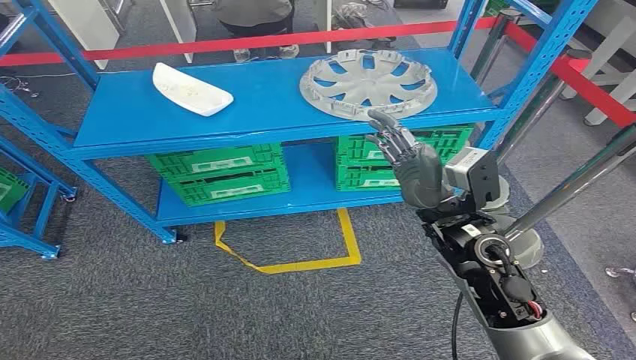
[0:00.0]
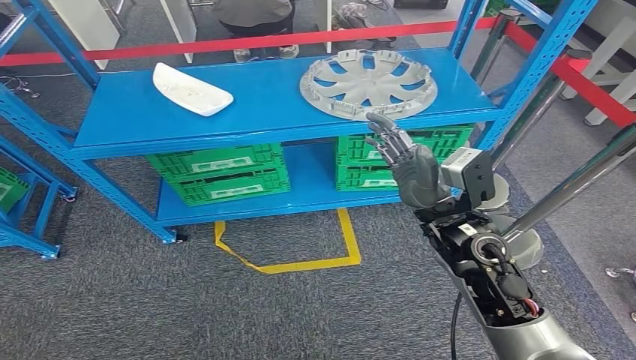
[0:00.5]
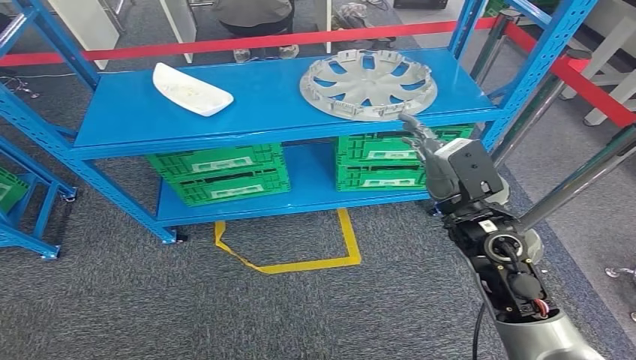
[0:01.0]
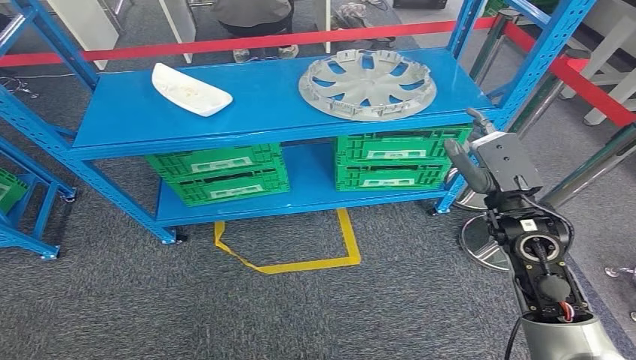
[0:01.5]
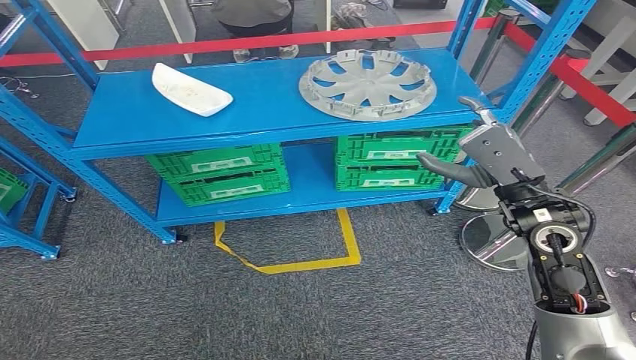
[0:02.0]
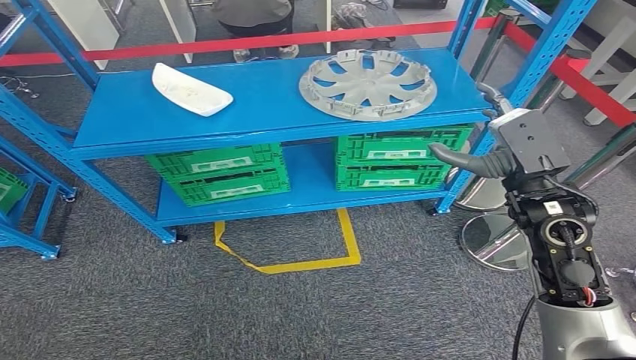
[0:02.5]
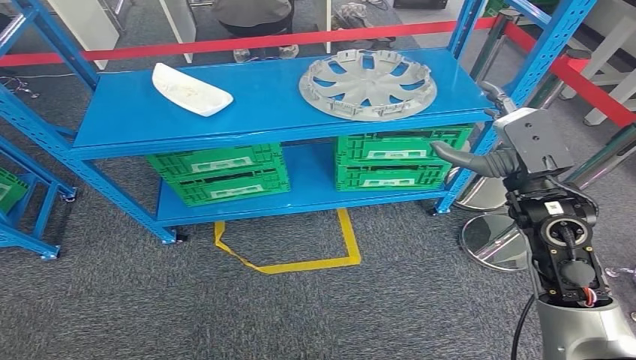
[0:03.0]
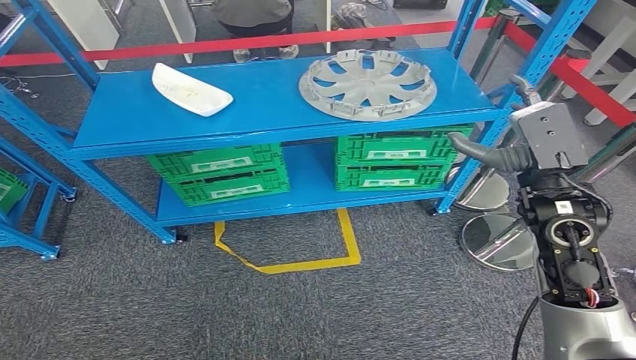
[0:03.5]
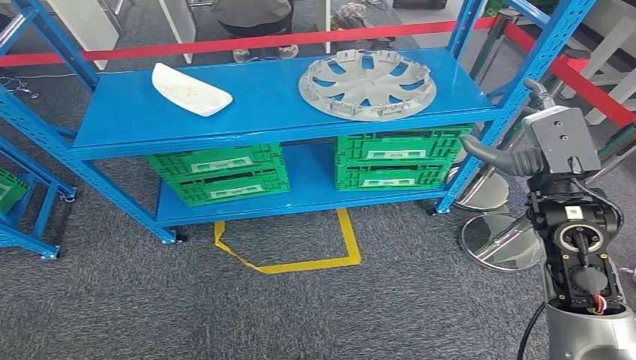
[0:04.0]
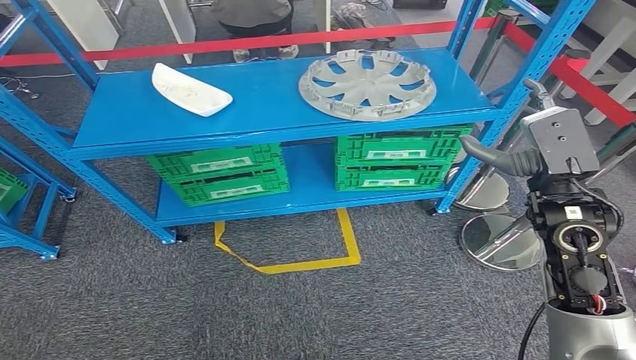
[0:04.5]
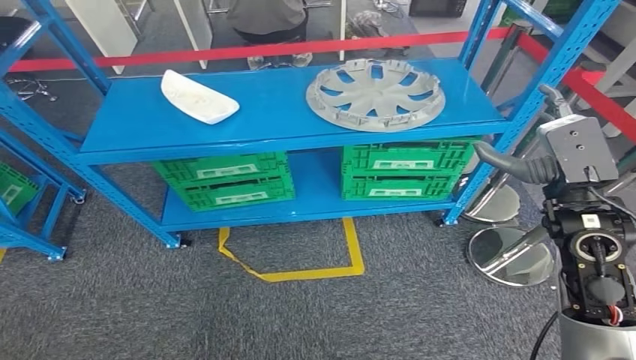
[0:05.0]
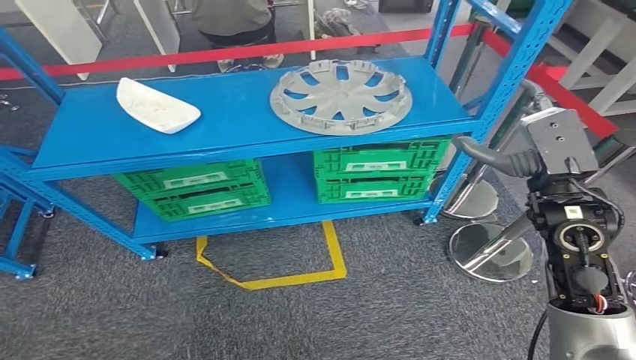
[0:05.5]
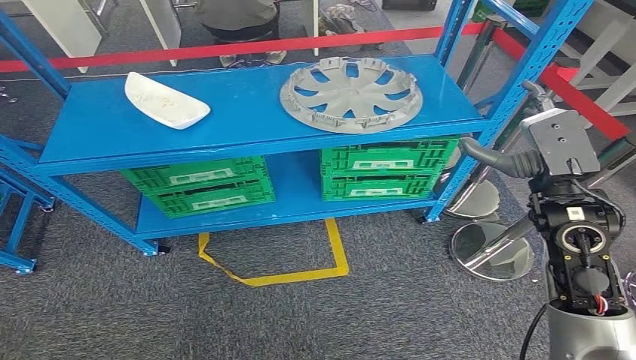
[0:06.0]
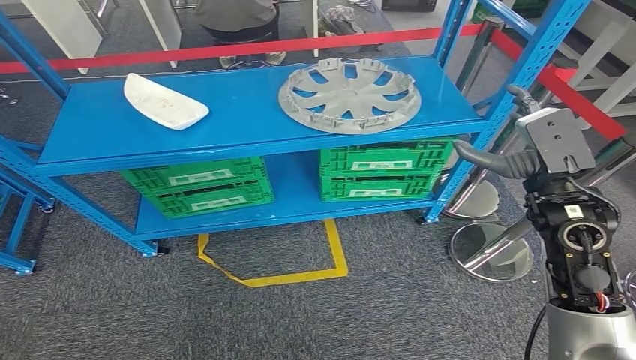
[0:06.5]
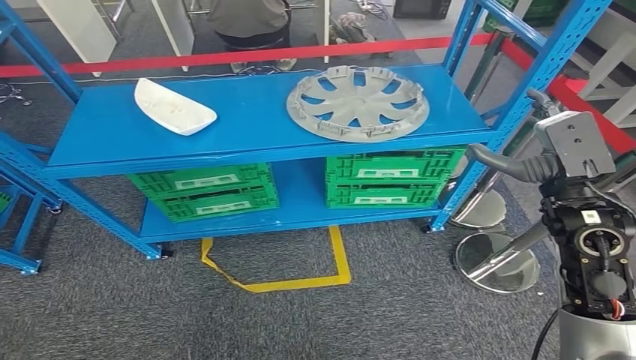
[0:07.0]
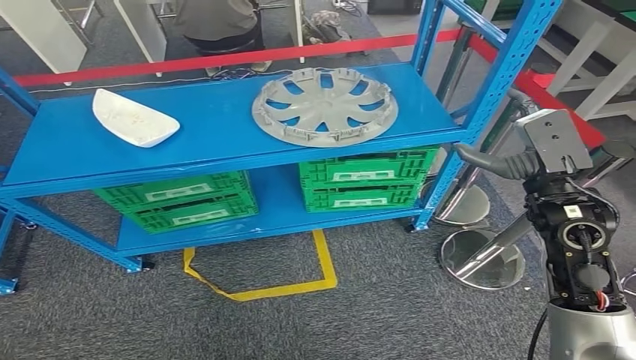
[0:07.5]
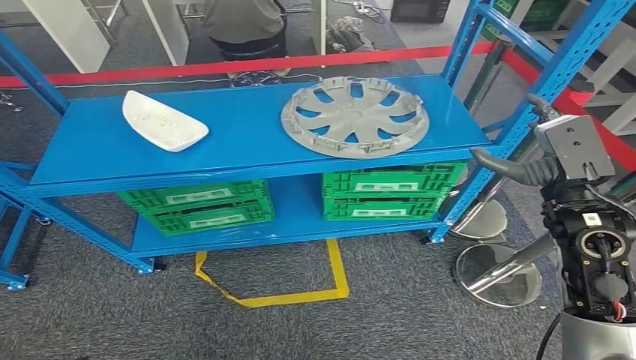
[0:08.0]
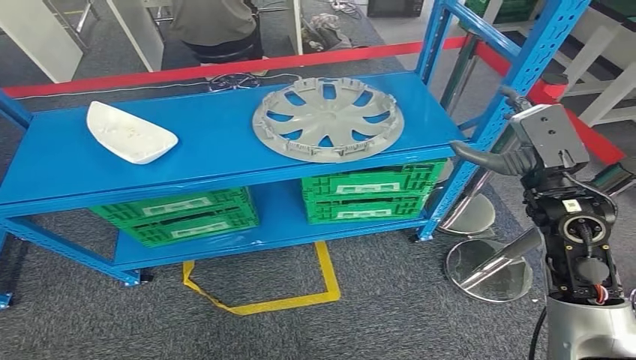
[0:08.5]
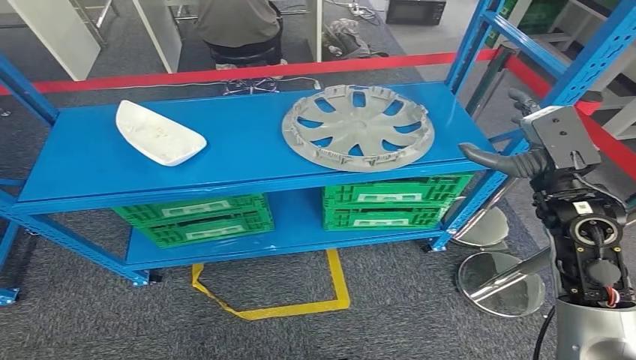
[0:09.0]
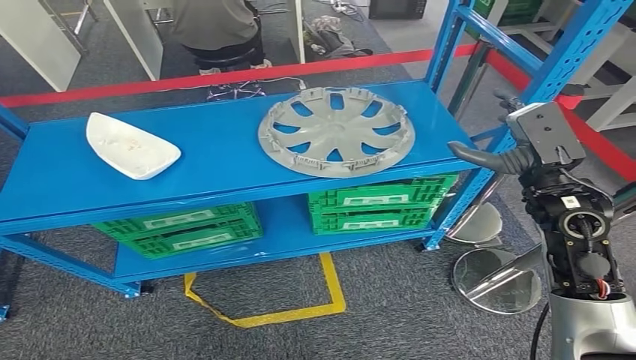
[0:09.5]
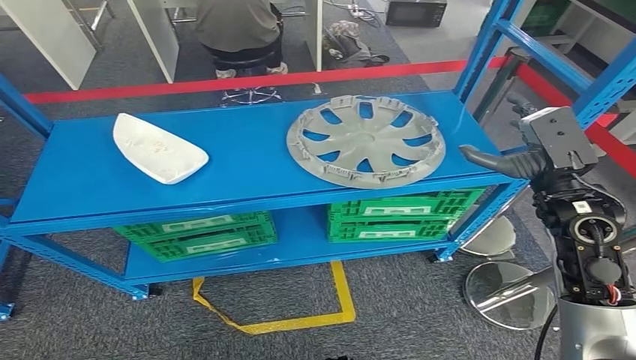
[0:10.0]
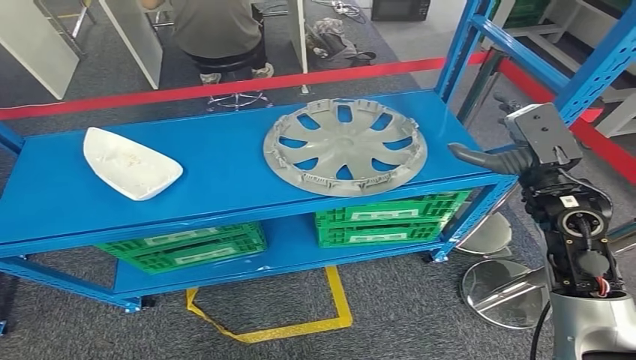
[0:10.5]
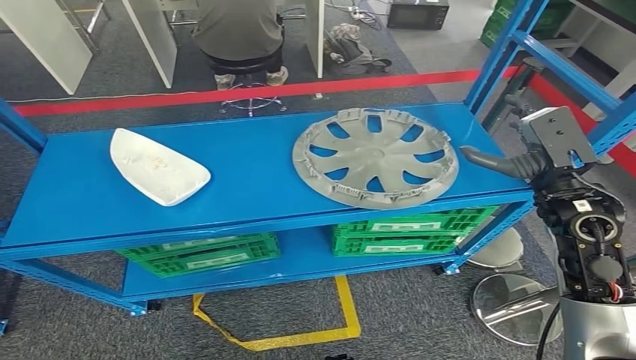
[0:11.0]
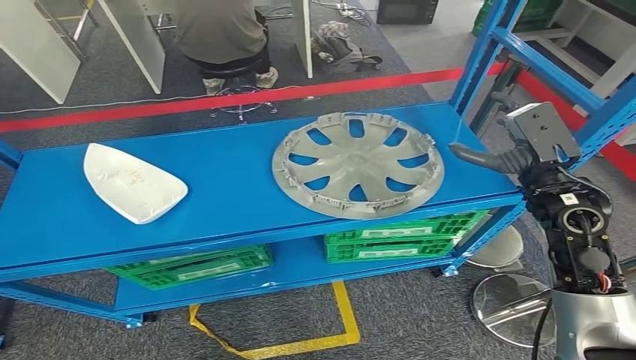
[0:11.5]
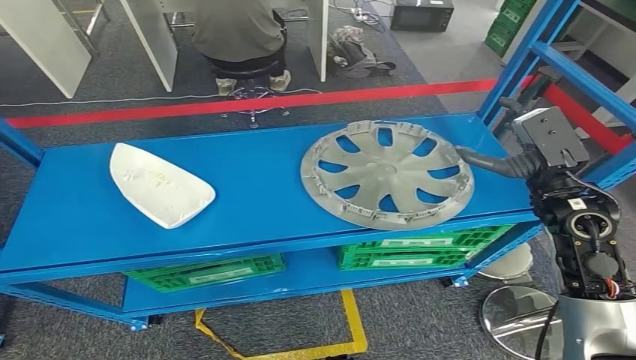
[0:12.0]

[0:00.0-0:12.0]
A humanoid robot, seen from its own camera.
0:02.0 to 0:04.0: The hands stay close to where they were, moving slightly.

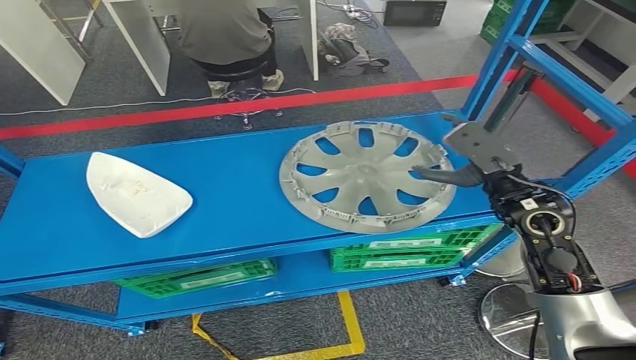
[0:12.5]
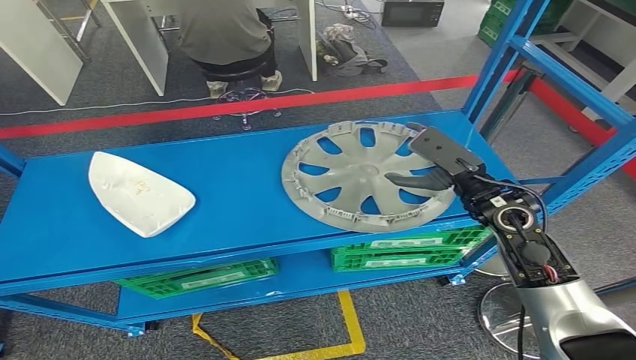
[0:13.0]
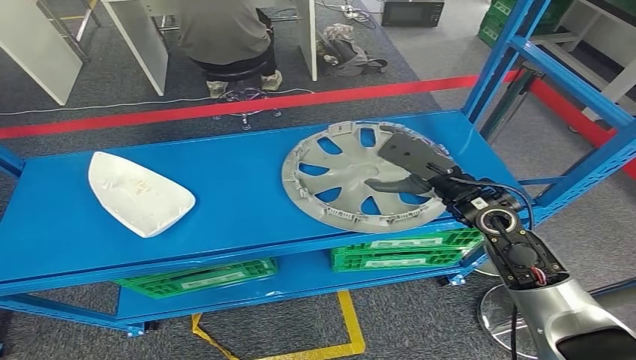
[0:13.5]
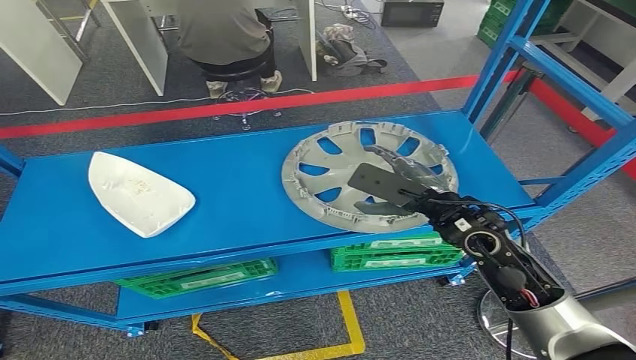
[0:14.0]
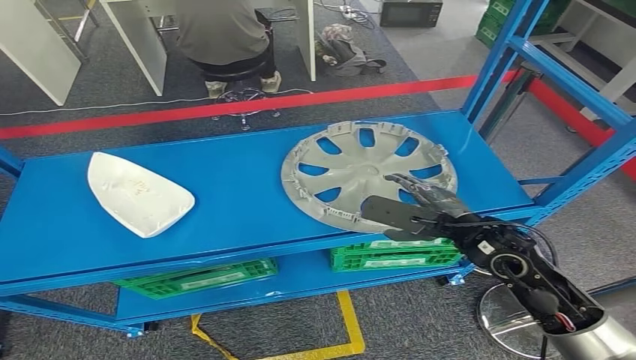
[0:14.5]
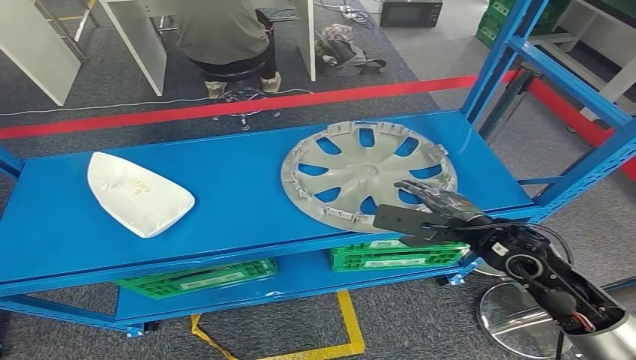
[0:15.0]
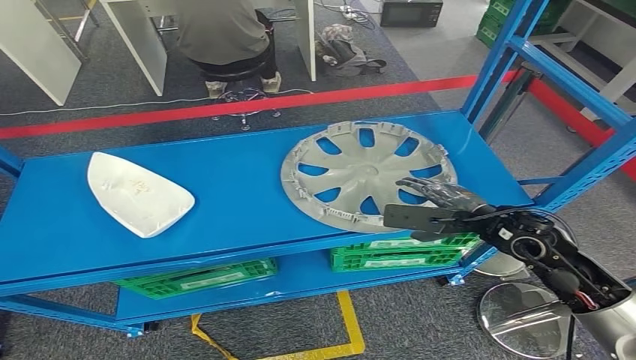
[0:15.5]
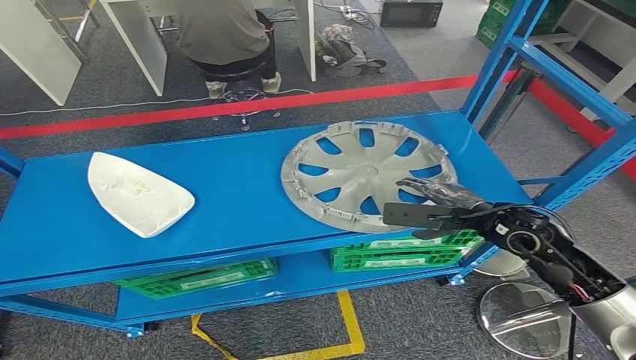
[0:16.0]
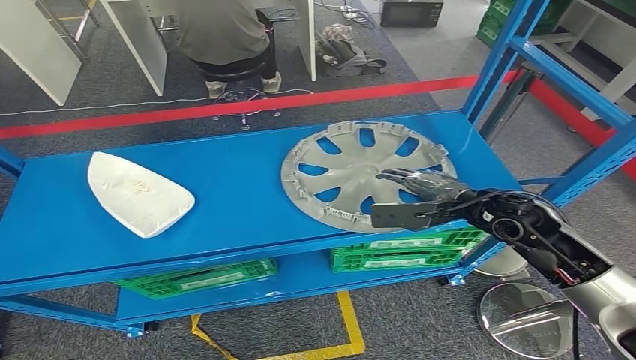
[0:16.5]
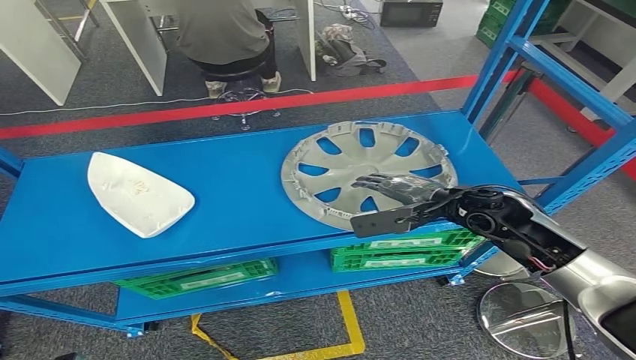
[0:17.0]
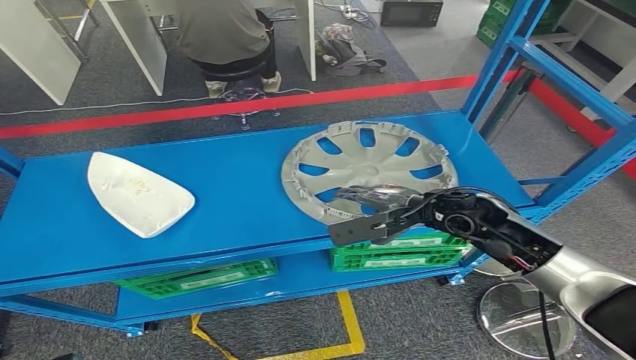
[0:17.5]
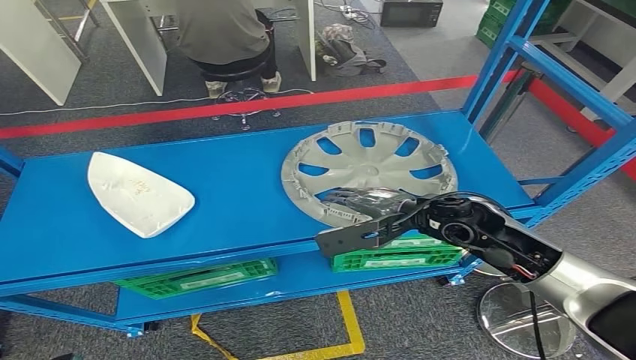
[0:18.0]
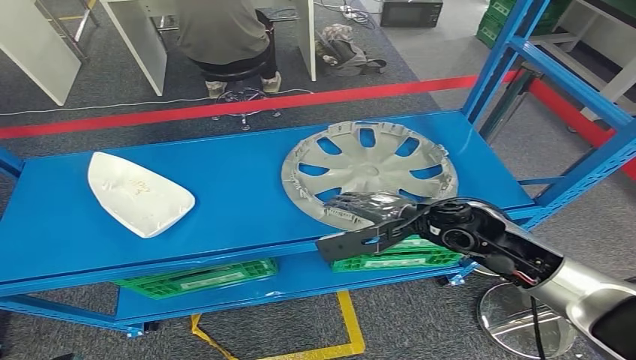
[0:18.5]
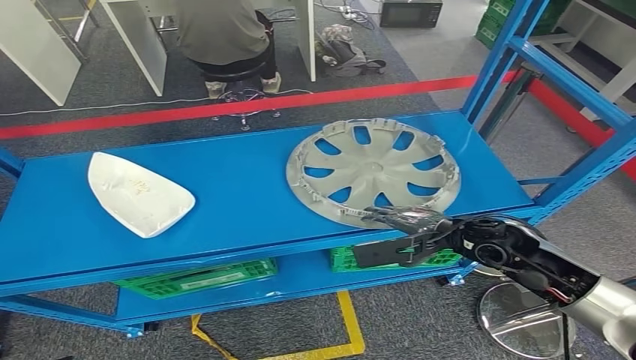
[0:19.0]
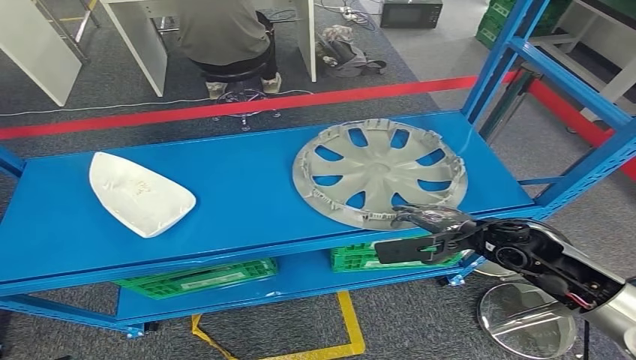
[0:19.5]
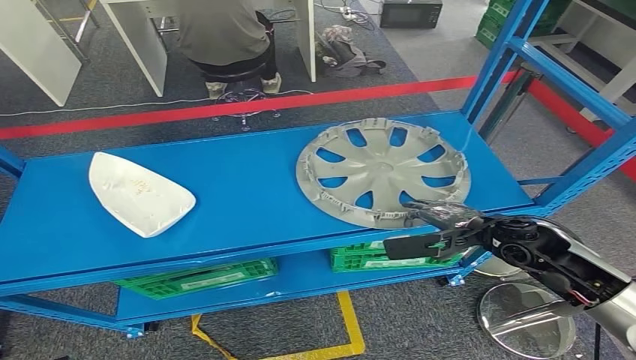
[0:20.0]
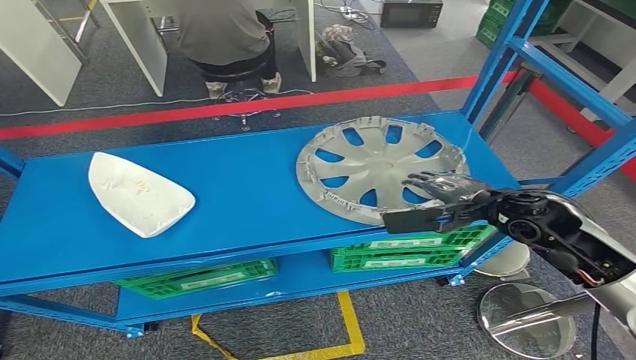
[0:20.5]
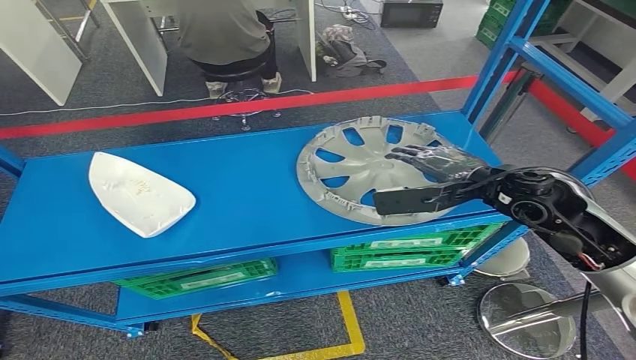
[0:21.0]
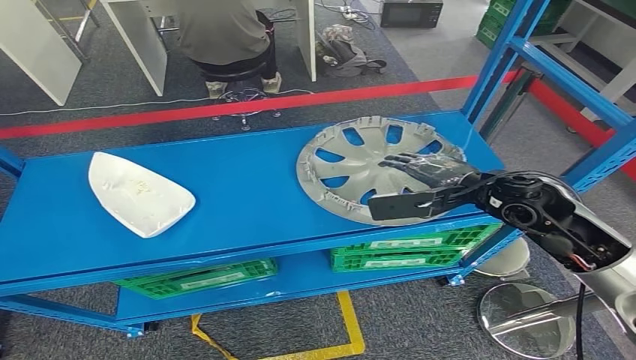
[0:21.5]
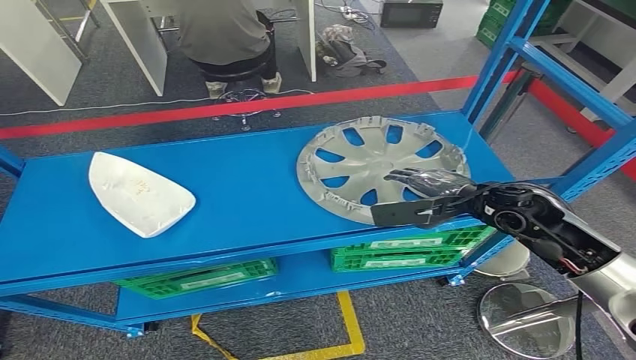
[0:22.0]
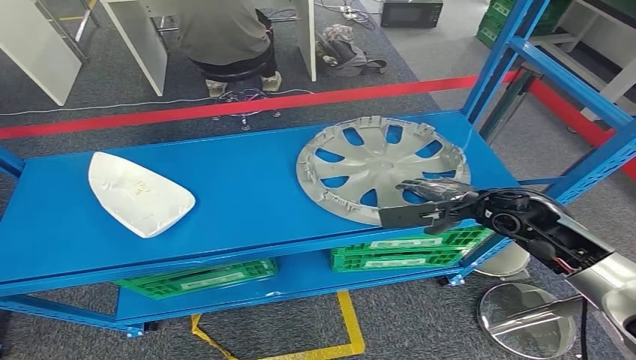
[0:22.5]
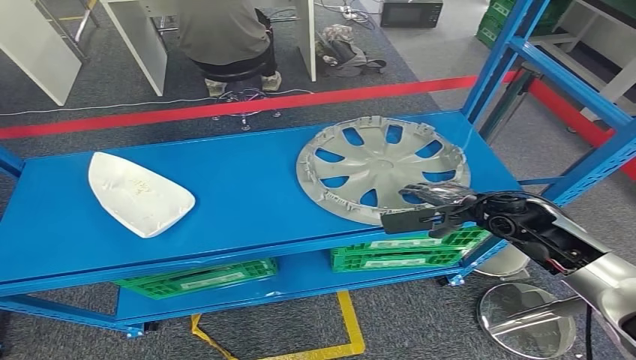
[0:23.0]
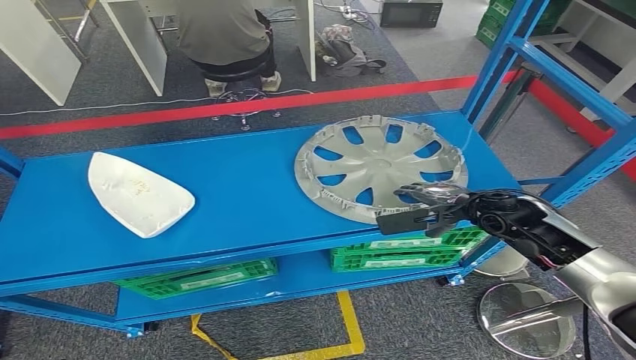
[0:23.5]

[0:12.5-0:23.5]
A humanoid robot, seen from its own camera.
0:12.5 to 0:14.5: The right hand travels to the left by about 5 cm.
0:14.5 to 0:16.0: The right hand moves to the right, roughly 5 cm.
0:16.0 to 0:18.0: The right hand moves to the left, about 10 cm.
0:18.0 to 0:20.0: The right hand moves to the right, roughly 10 cm.
0:20.0 to 0:21.5: The right hand goes some 10 cm upward.
0:21.5 to 0:23.5: The right hand moves downward, approximately 10 cm.
